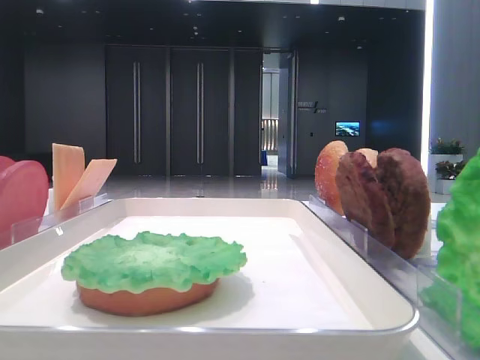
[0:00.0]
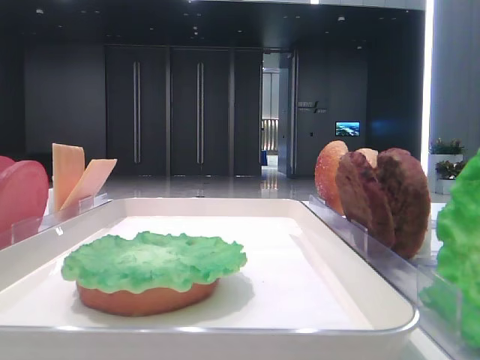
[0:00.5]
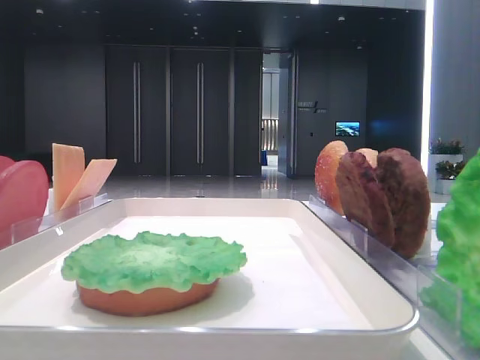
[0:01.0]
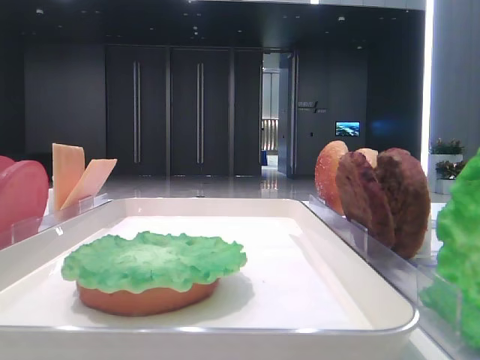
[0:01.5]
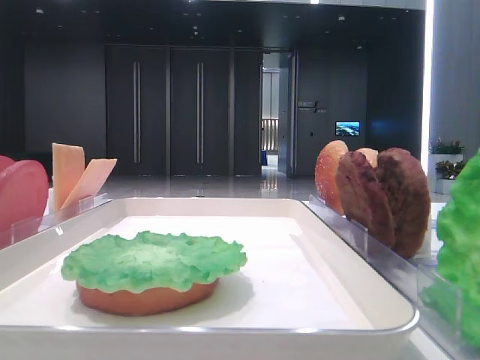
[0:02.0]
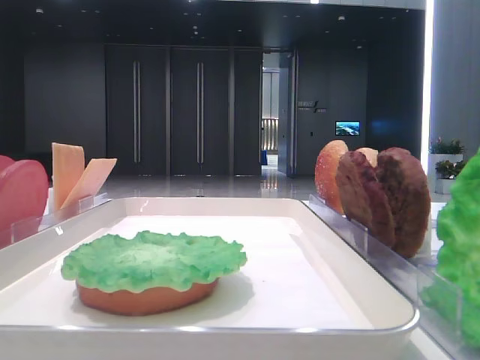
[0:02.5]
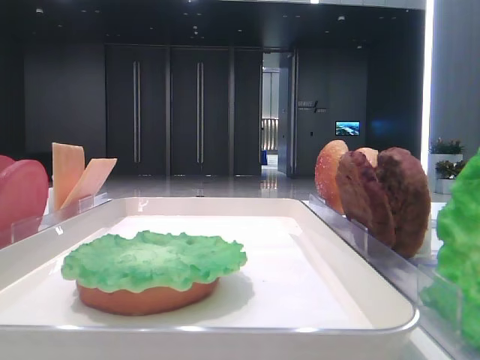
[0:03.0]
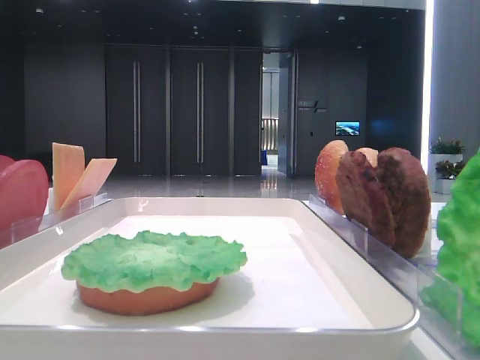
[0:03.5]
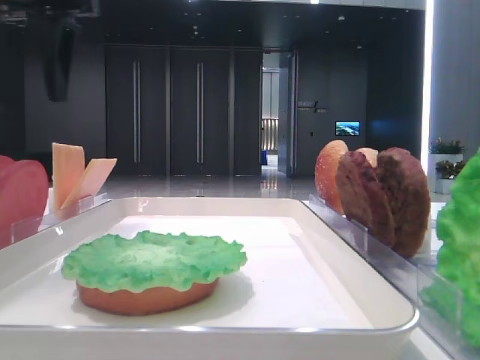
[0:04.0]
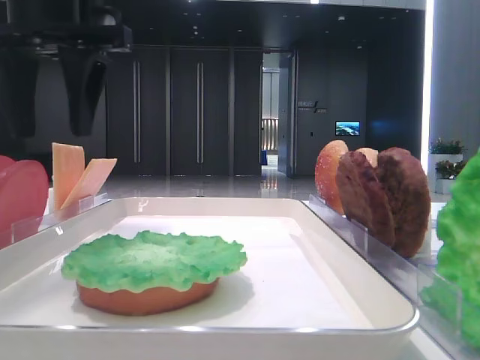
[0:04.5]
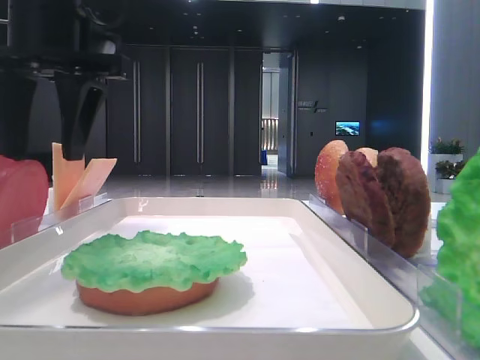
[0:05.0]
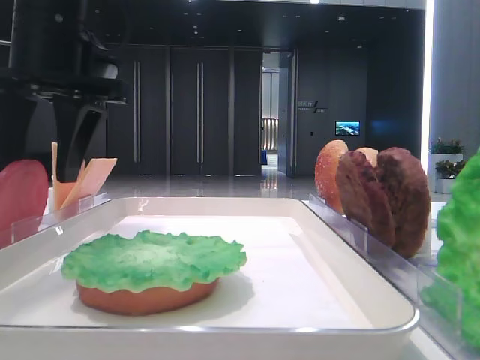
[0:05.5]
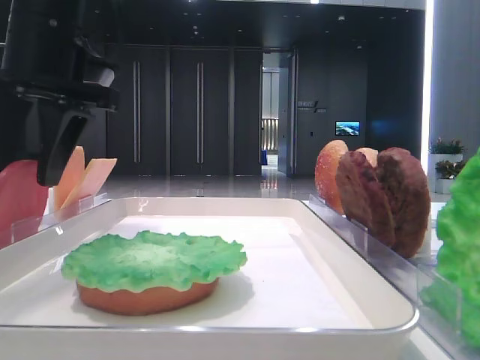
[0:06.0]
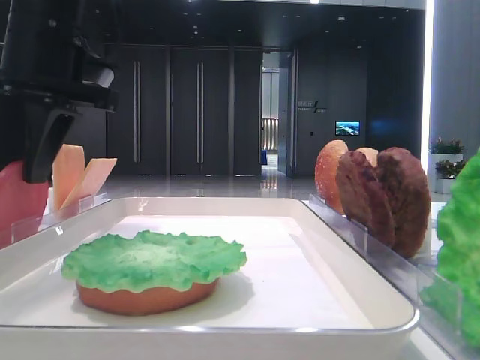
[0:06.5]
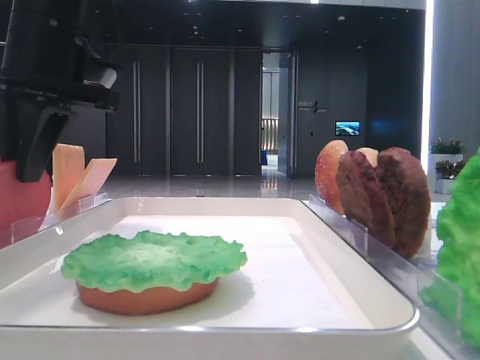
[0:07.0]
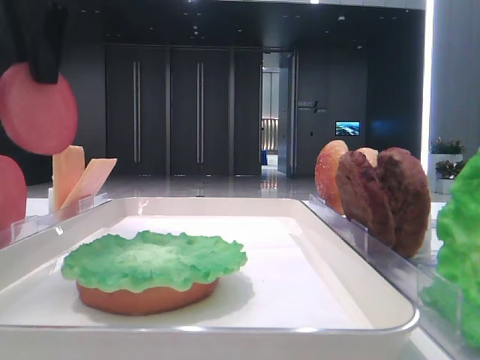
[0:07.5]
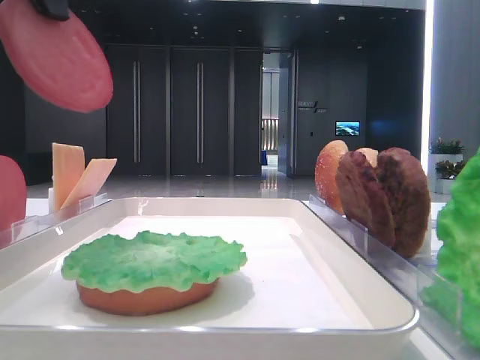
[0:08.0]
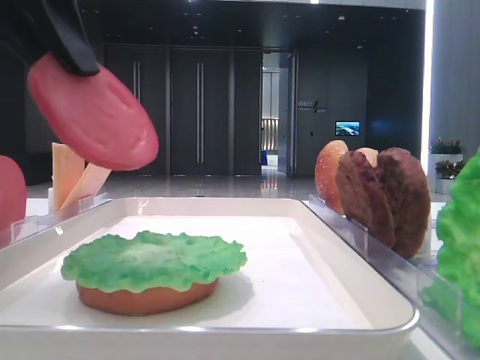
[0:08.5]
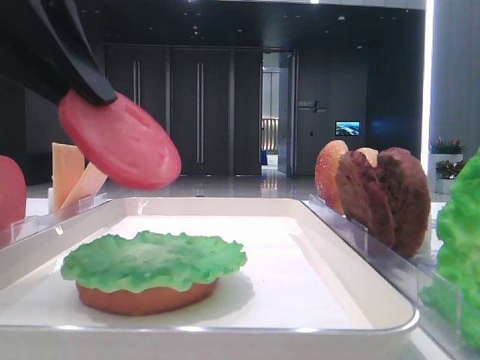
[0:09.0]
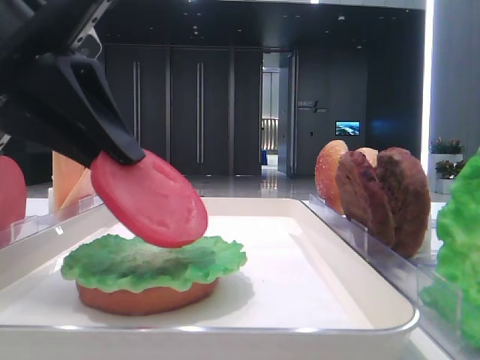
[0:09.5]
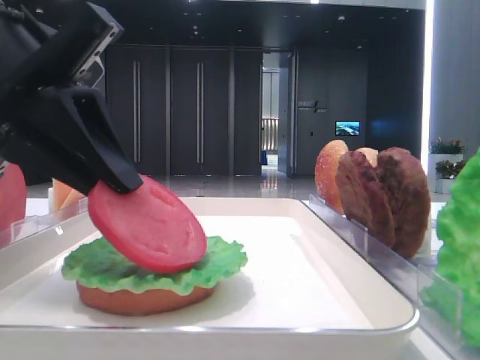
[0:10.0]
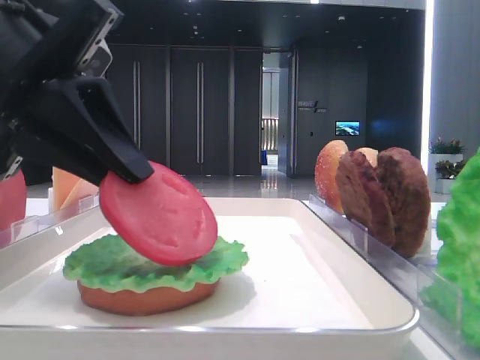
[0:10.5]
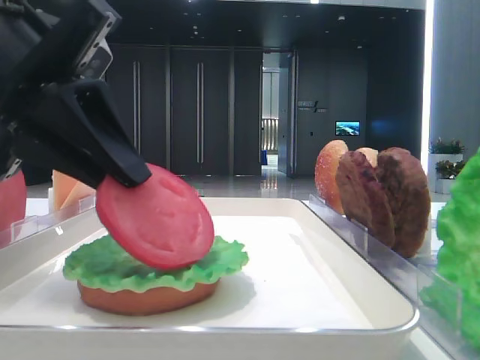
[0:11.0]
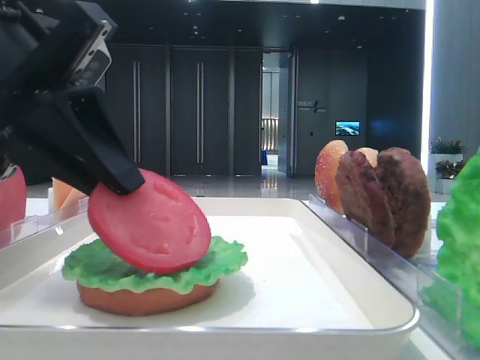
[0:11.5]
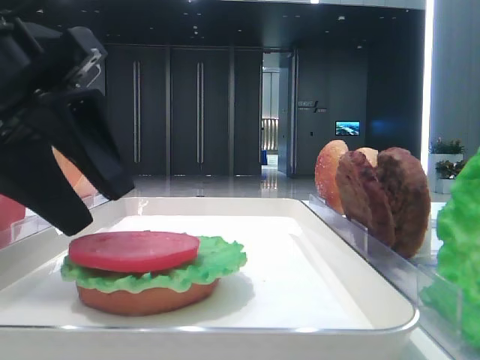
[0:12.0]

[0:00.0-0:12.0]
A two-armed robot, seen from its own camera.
Step, 0:00.0 to 0:06.5: Pick up the tomato slice with the left hand.
Step, 0:07.0 to 0:11.5: Place the tomato slice on the lettuce leaf with the left hand.
0:02.0 to 0:04.0: The left gripper heads forward and to the right, covering about 25 cm.
0:04.0 to 0:06.0: The left gripper shifts approximately 5 cm downward.
0:06.0 to 0:08.0: The left gripper travels upward and backward by some 15 cm, and closes.
0:08.0 to 0:10.0: The left gripper shifts some 15 cm downward.
0:10.0 to 0:12.0: The left gripper opens.

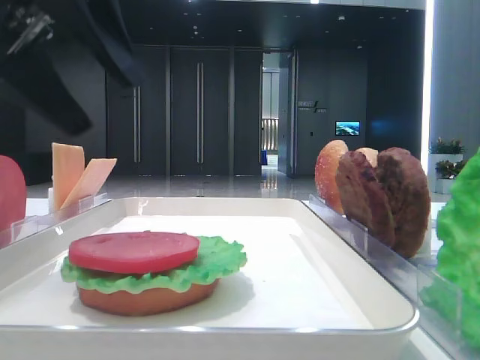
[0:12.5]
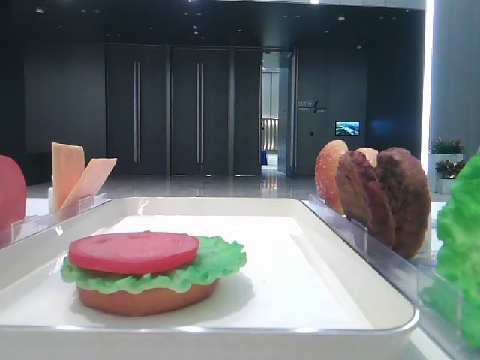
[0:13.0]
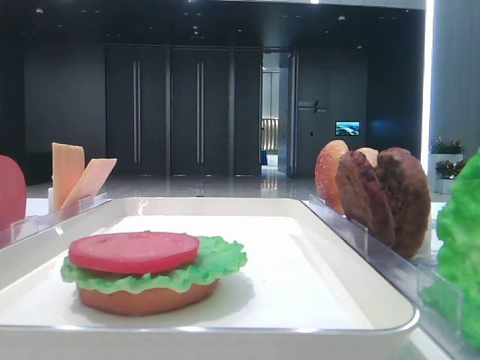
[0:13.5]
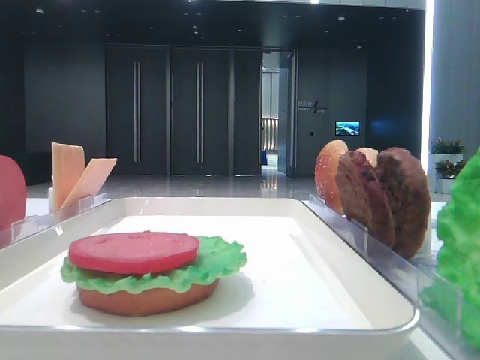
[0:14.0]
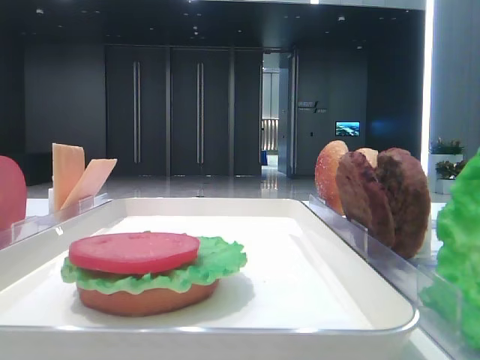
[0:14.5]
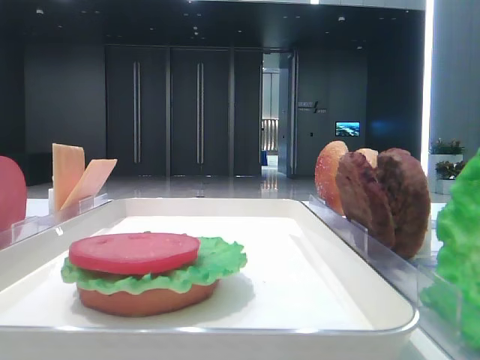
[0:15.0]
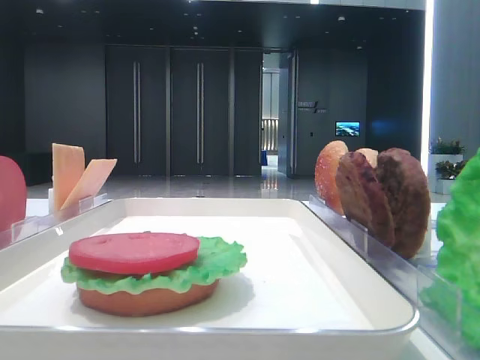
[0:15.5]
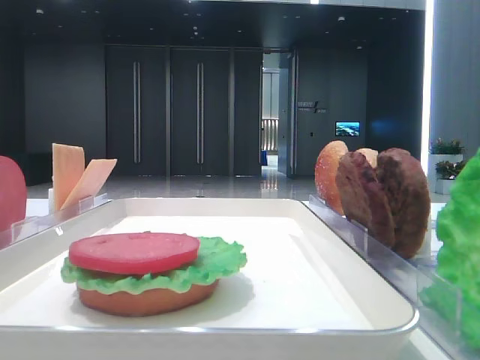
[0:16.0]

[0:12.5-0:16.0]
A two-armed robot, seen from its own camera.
0:12.5 to 0:14.5: The left gripper is displaced backward and to the left by roughly 25 cm.

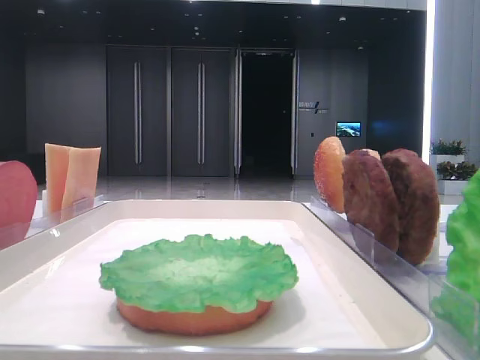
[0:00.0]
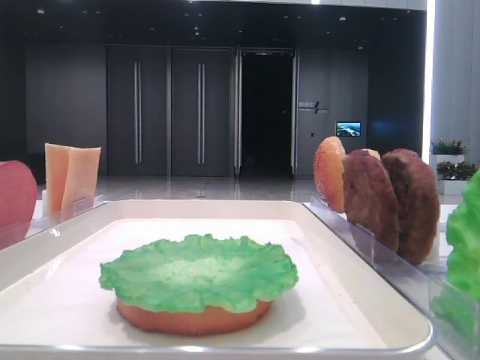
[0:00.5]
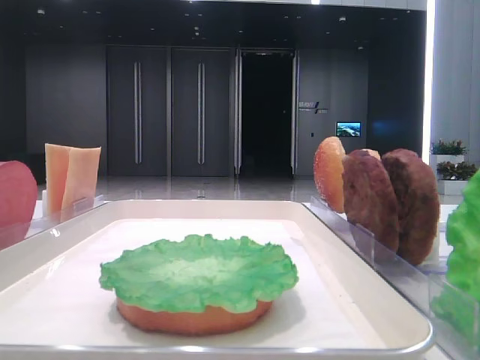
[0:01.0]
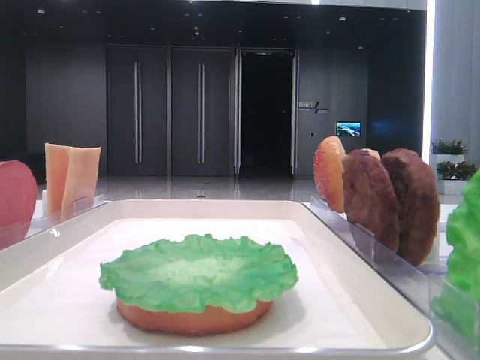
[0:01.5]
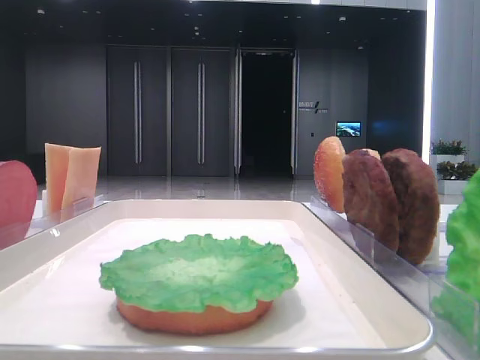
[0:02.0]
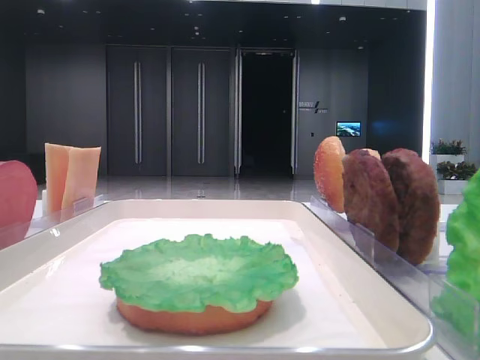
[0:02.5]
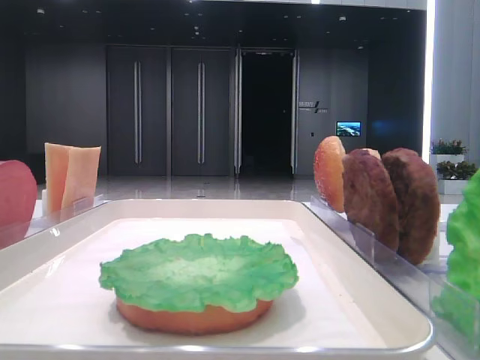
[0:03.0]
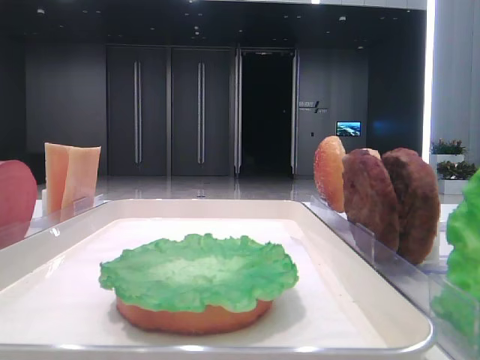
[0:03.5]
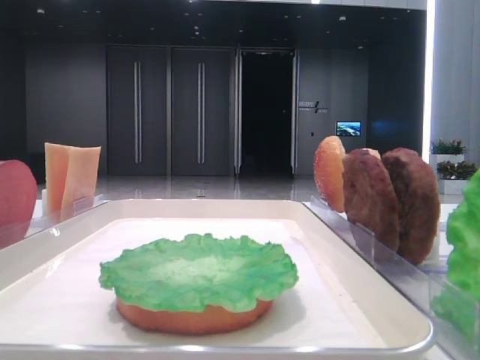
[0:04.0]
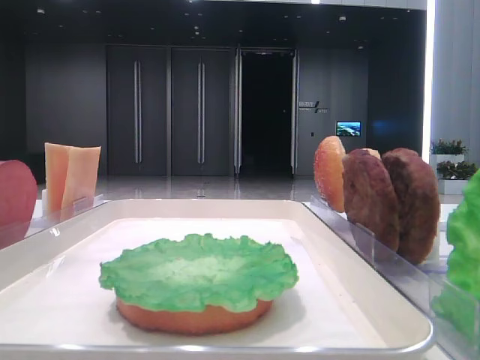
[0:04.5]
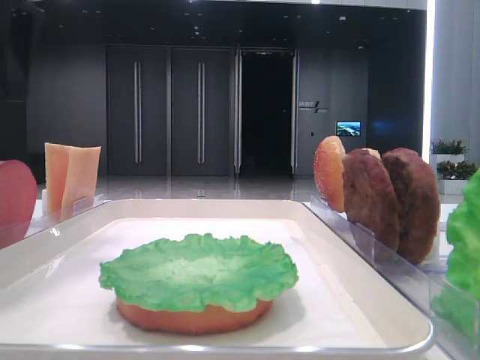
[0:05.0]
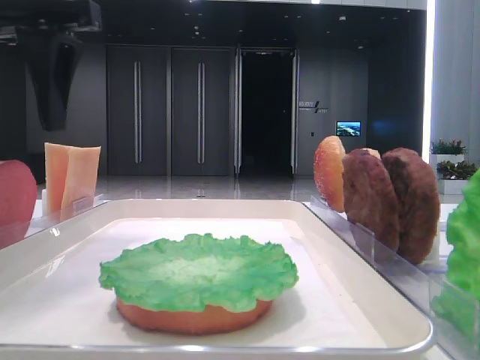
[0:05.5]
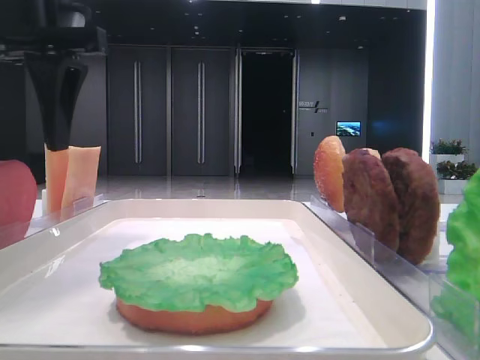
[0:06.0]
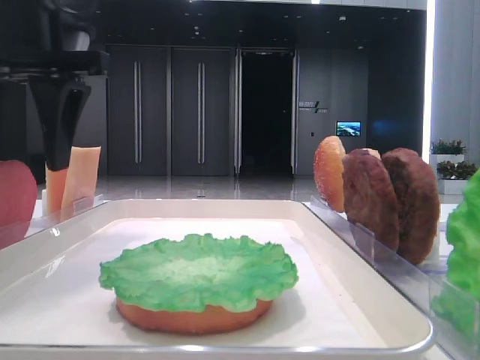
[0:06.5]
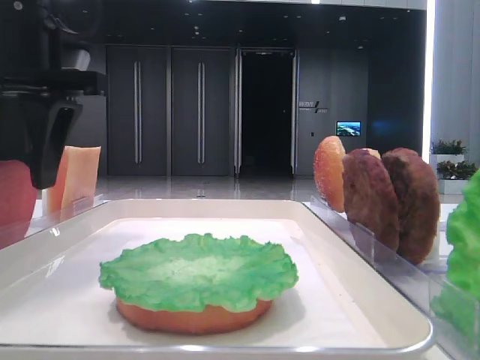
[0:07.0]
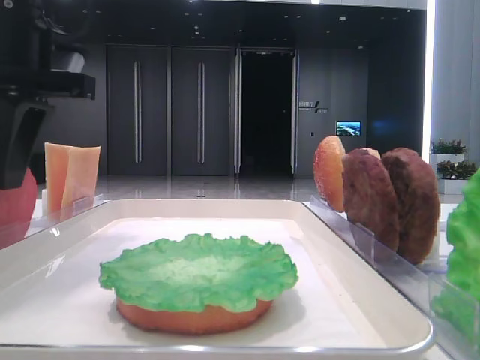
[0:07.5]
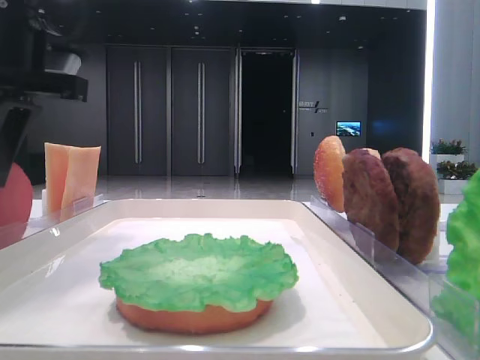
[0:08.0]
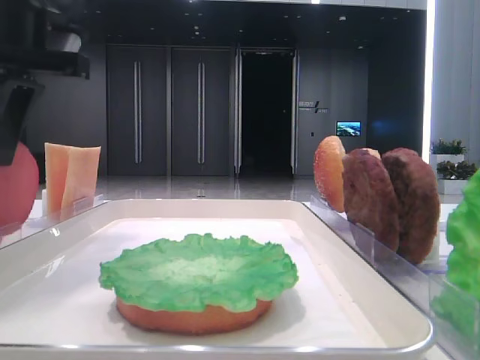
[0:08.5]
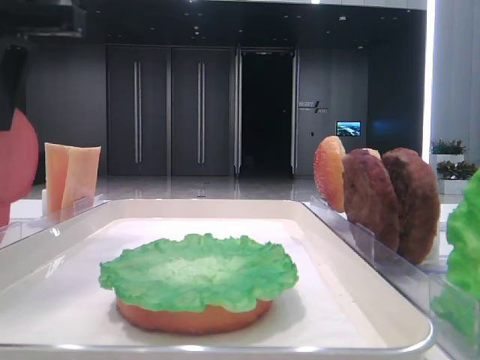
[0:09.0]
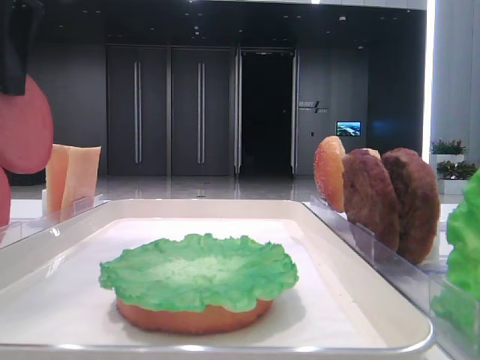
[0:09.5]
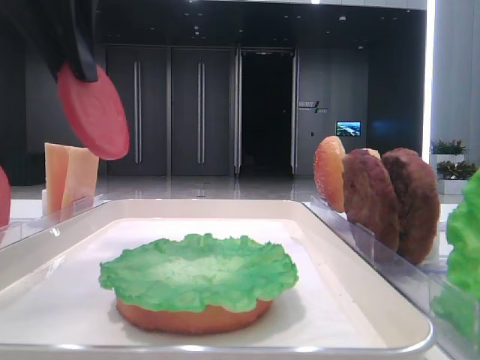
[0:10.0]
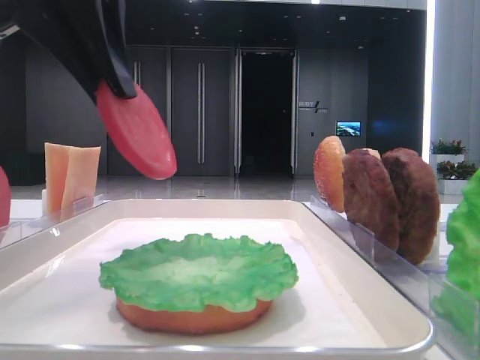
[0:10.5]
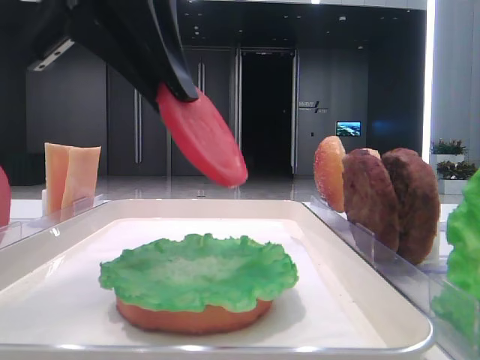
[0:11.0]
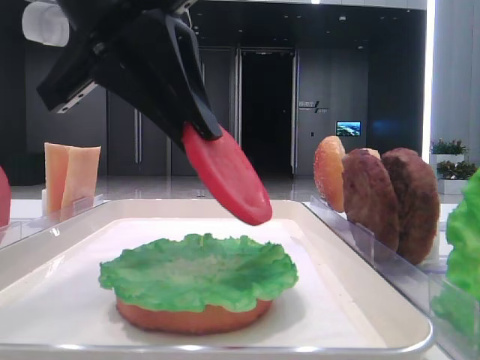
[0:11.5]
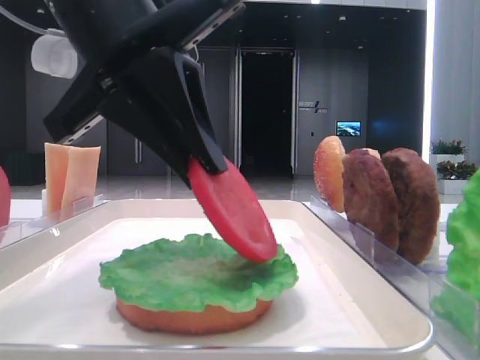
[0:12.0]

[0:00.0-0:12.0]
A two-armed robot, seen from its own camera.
Step, 0:00.0 to 0:08.0: Pick up the tomato slice with the left hand.
0:04.0 to 0:06.0: The left gripper travels to the right and downward by roughly 15 cm.
0:06.0 to 0:08.0: The left gripper closes up.
0:08.0 to 0:10.0: The left gripper shifts about 5 cm upward.
0:10.0 to 0:12.0: The left gripper heads downward and to the right, covering approximately 10 cm.
